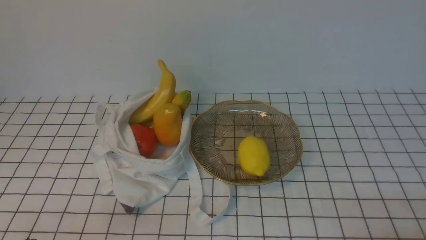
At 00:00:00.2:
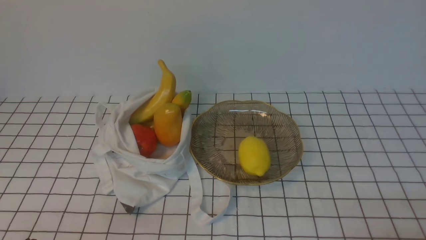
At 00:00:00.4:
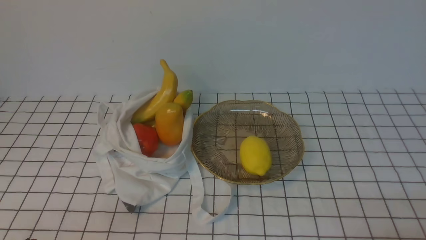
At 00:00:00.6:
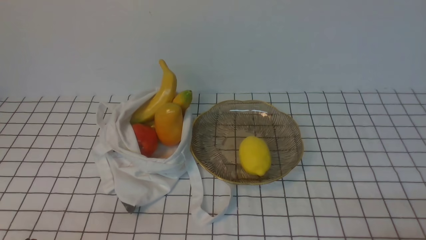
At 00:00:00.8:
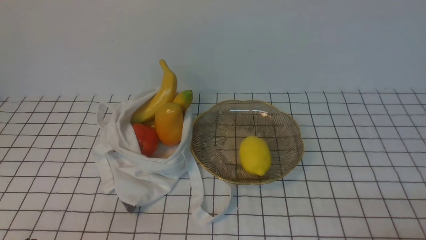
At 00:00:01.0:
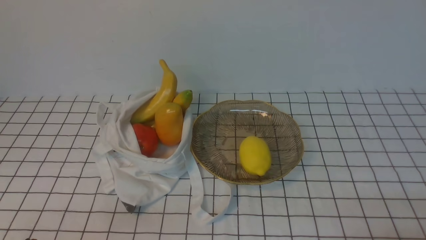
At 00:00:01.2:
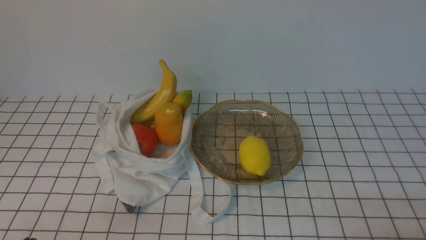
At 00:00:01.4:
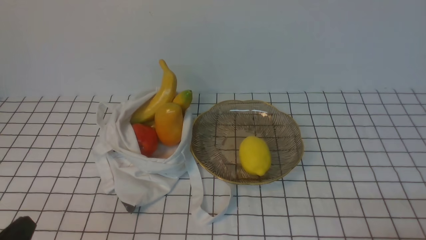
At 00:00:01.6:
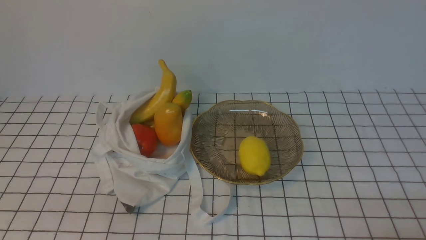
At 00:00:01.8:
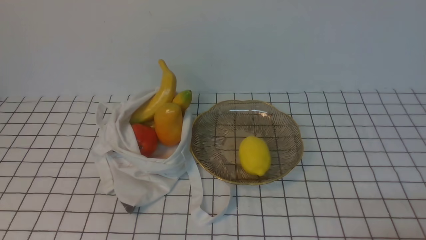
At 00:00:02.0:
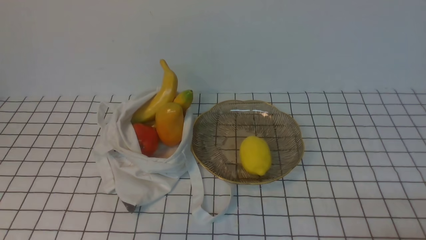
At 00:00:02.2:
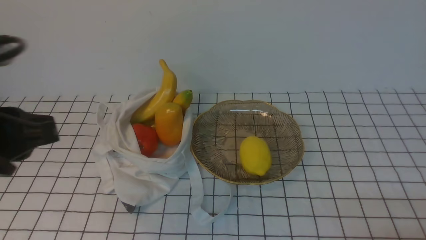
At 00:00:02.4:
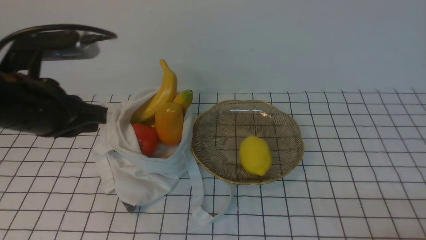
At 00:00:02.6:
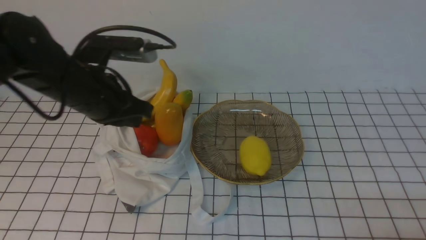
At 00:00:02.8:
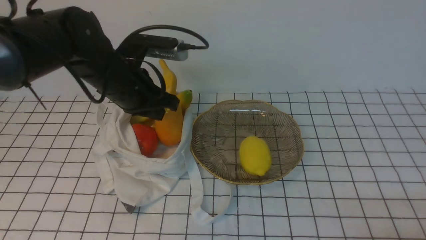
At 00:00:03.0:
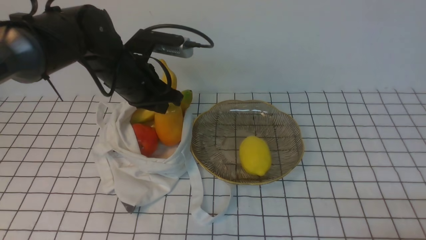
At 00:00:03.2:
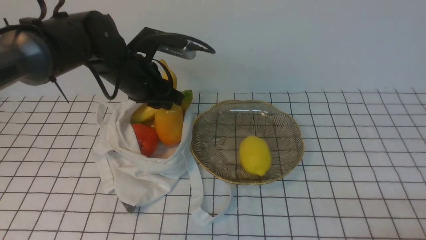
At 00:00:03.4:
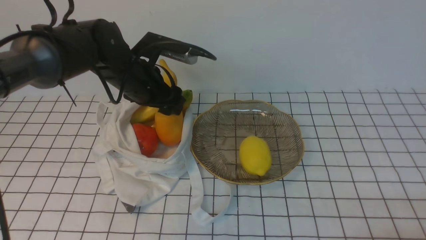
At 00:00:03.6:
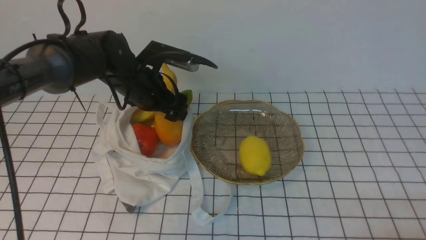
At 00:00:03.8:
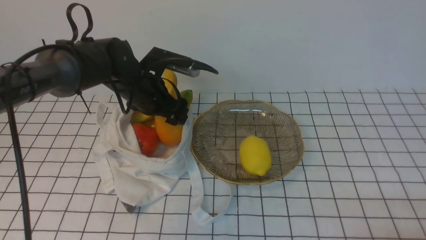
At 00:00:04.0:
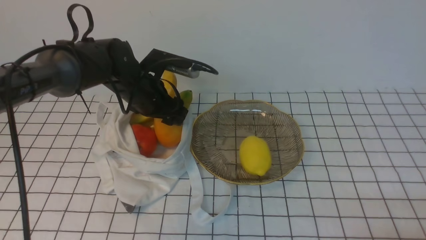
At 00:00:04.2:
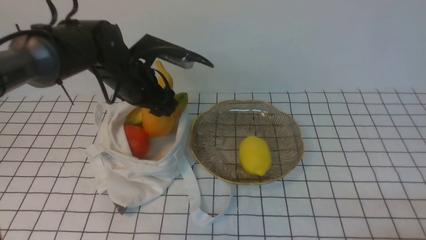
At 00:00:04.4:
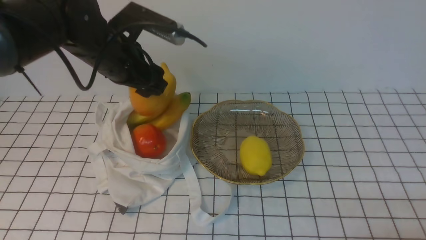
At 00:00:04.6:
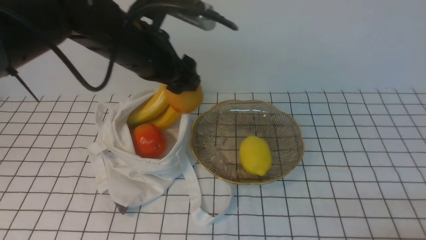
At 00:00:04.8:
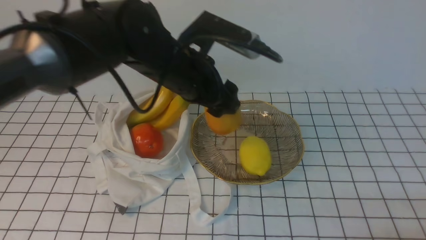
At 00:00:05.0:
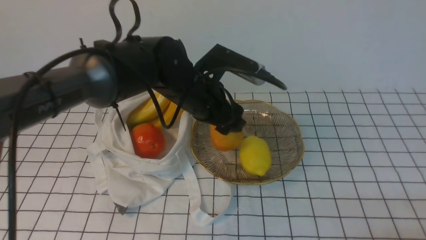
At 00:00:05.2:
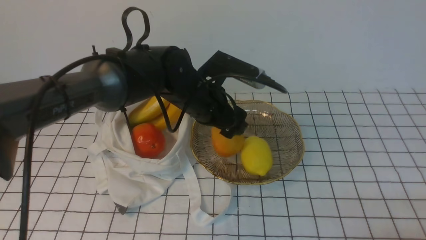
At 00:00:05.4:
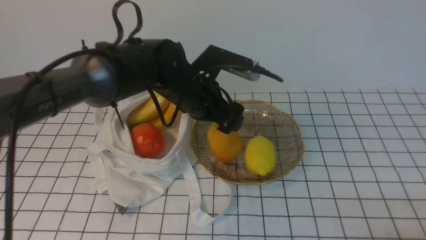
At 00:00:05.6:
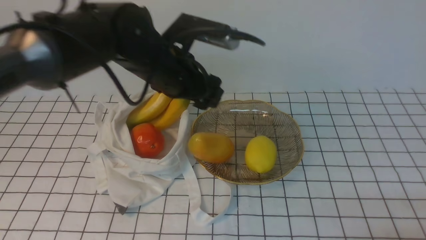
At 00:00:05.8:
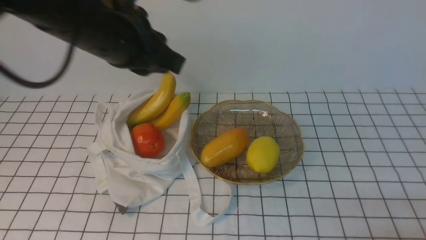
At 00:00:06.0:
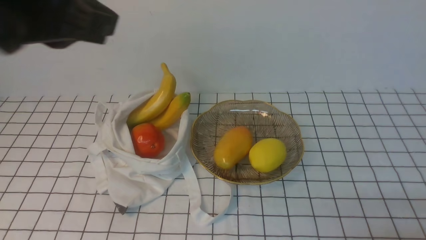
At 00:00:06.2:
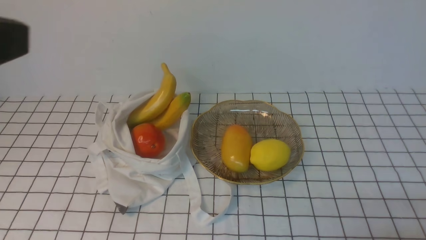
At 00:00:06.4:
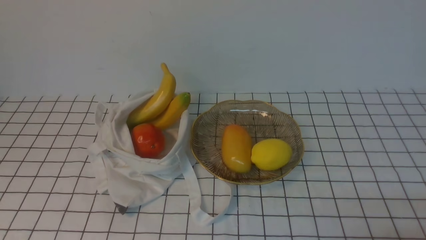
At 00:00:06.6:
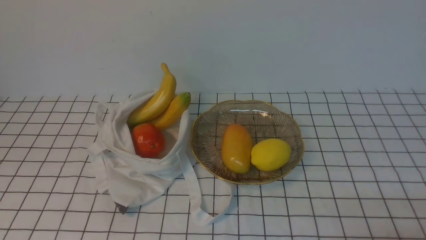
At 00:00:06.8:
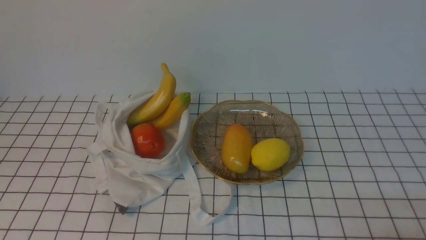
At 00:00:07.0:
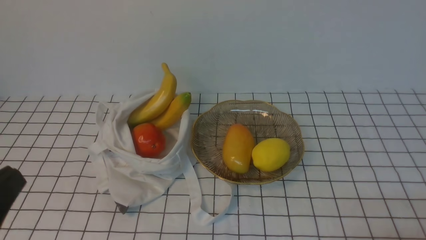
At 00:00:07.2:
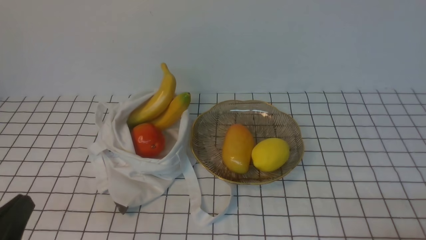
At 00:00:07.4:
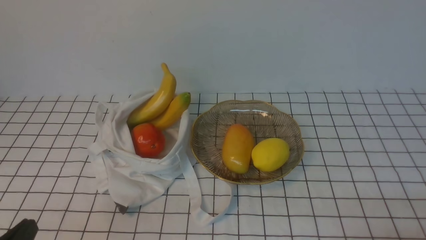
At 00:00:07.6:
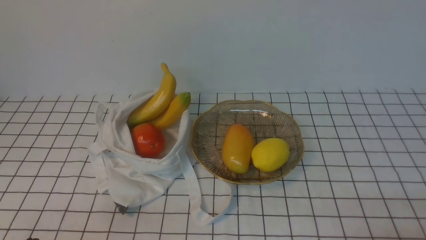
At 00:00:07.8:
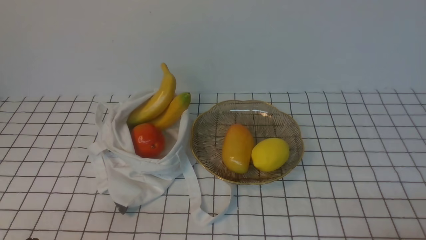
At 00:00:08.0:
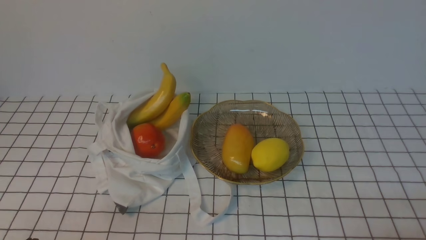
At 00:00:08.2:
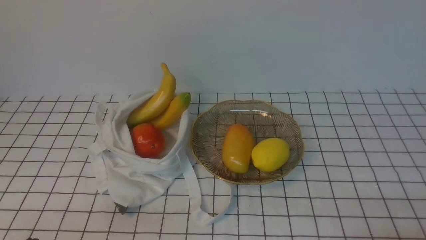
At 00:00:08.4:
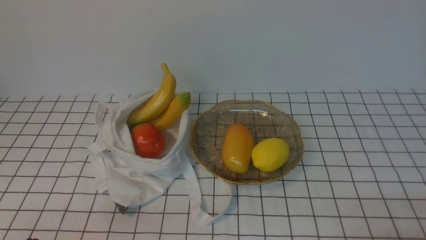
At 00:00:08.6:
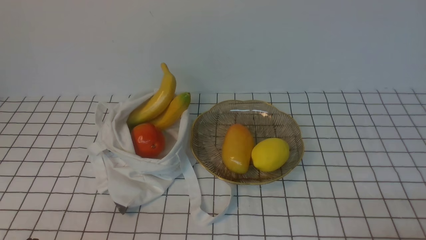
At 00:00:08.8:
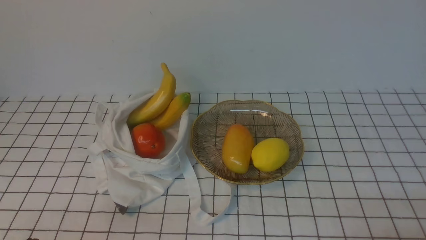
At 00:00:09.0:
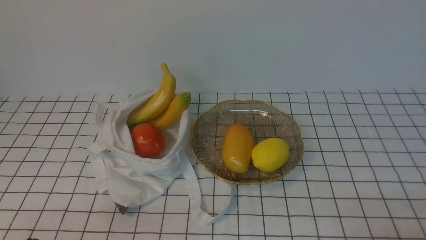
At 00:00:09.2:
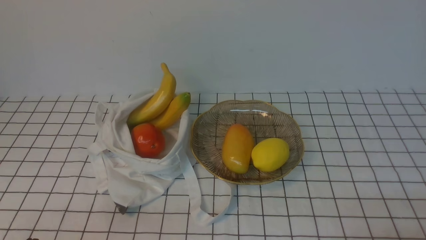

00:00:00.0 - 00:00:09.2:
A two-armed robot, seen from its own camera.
Step, 00:00:00.0 - 00:00:04.2: use the left arm to grab a mango from the bag.
Step, 00:00:04.4 - 00:00:05.4: use the left arm to put the mango into the empty plate on the right.
00:00:01.6 - 00:00:03.0: The left gripper goes about 35 cm forward.
00:00:03.0 - 00:00:04.6: The left gripper shifts some 5 cm upward, and opens its fingers.
00:00:04.6 - 00:00:06.2: The left gripper is displaced backward, upward and to the left by approximately 30 cm, and closes its fingers.
00:00:06.2 - 00:00:07.6: The left gripper heads downward, covering some 30 cm.
00:00:07.6 - 00:00:09.2: Both grippers stay about where they are.
